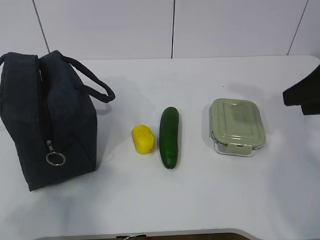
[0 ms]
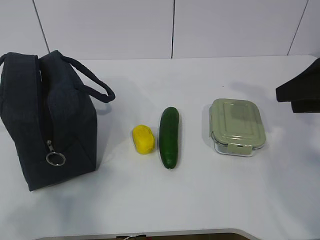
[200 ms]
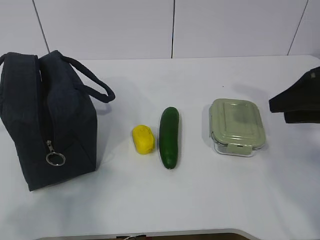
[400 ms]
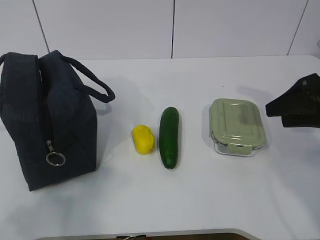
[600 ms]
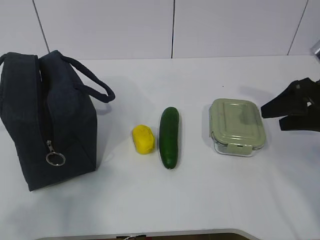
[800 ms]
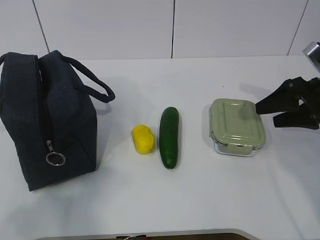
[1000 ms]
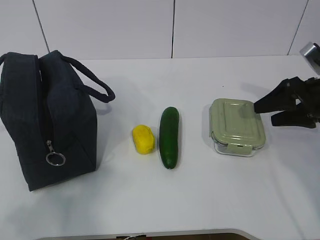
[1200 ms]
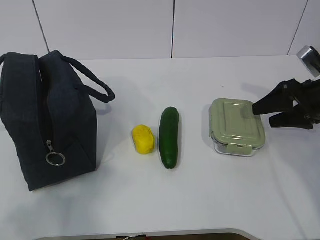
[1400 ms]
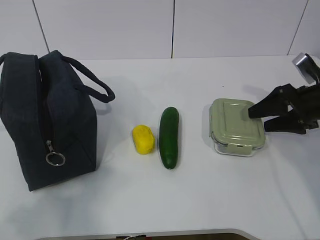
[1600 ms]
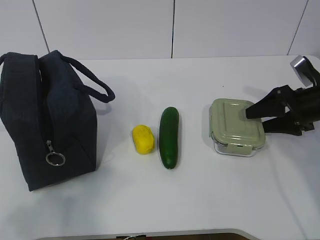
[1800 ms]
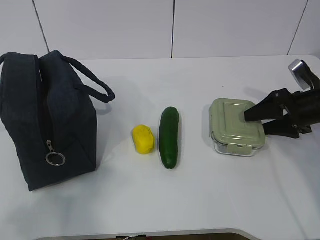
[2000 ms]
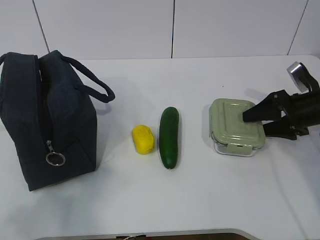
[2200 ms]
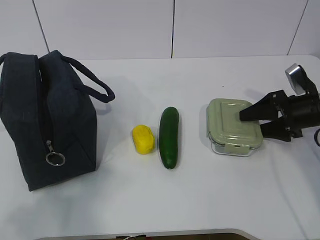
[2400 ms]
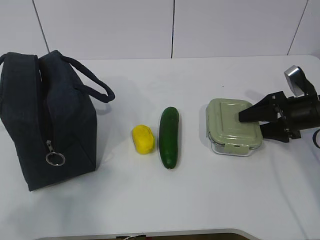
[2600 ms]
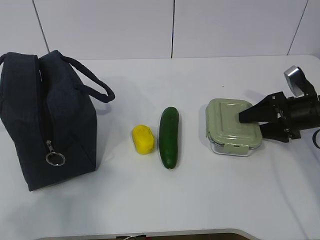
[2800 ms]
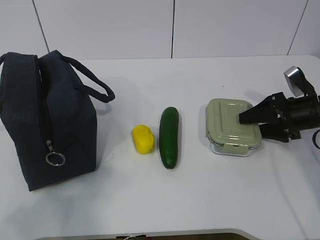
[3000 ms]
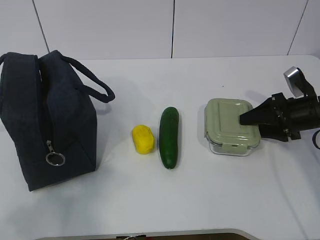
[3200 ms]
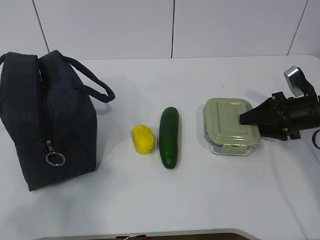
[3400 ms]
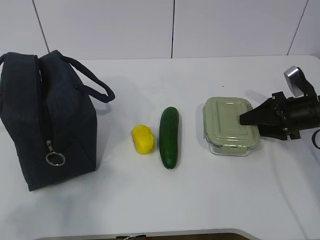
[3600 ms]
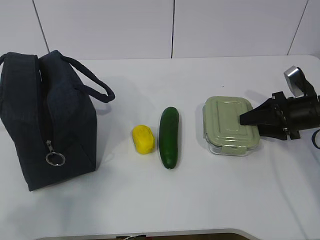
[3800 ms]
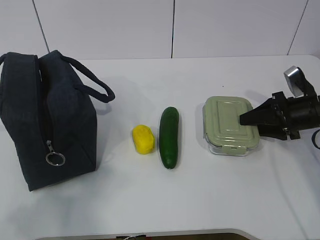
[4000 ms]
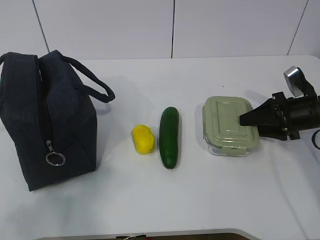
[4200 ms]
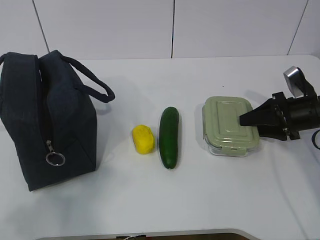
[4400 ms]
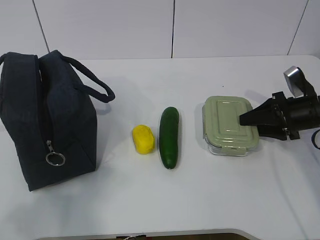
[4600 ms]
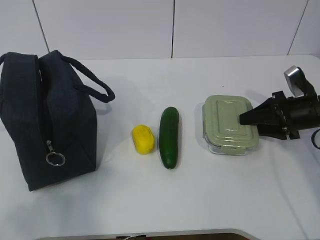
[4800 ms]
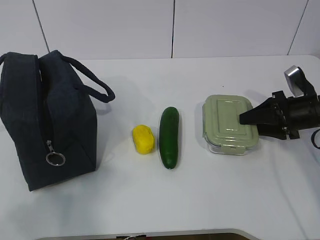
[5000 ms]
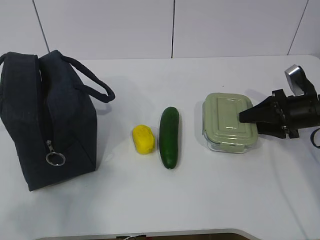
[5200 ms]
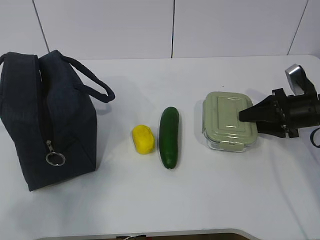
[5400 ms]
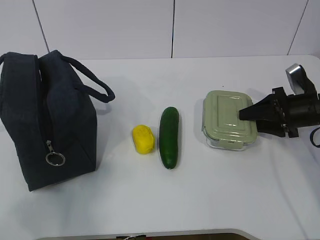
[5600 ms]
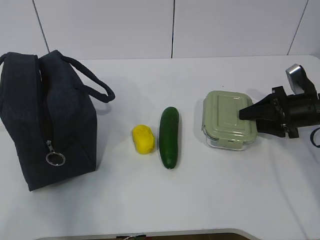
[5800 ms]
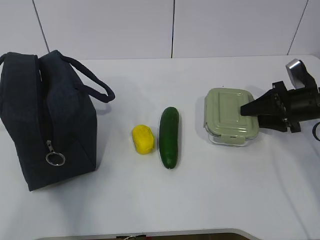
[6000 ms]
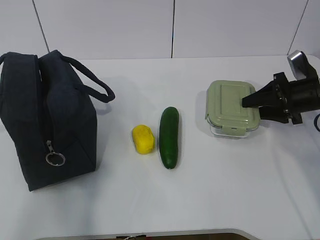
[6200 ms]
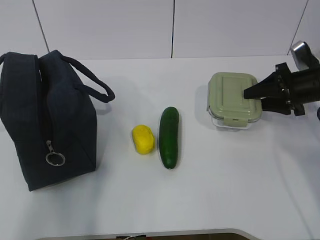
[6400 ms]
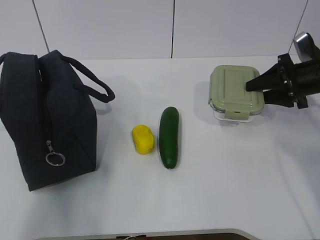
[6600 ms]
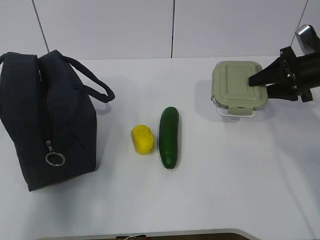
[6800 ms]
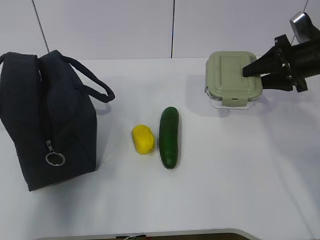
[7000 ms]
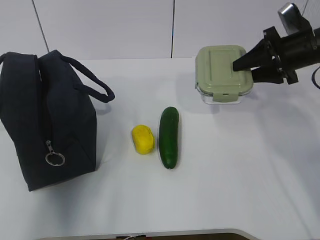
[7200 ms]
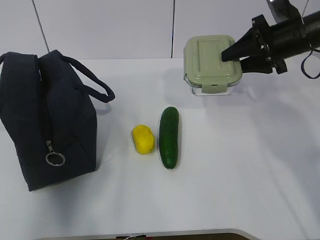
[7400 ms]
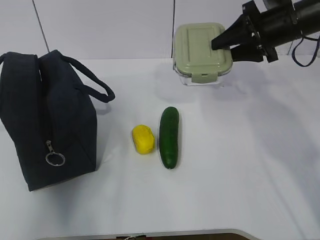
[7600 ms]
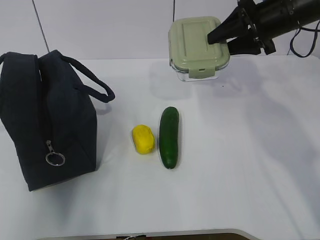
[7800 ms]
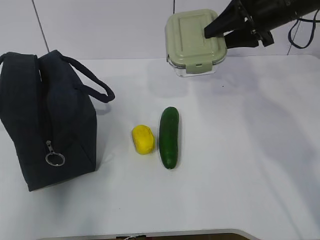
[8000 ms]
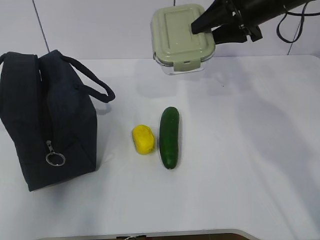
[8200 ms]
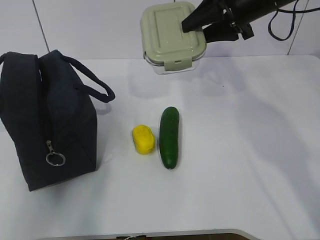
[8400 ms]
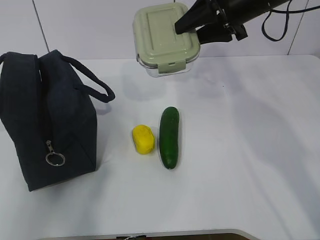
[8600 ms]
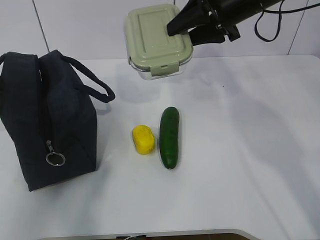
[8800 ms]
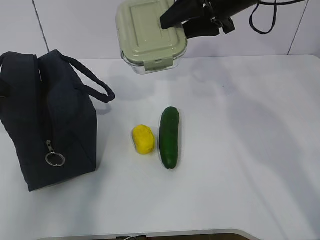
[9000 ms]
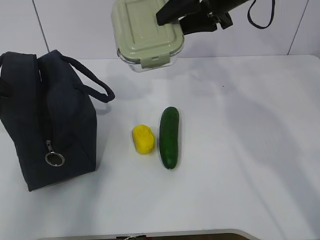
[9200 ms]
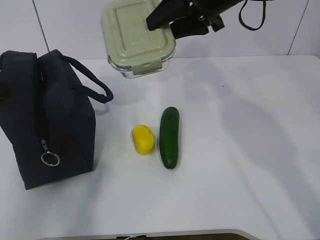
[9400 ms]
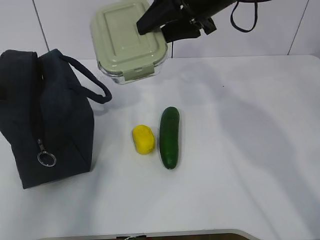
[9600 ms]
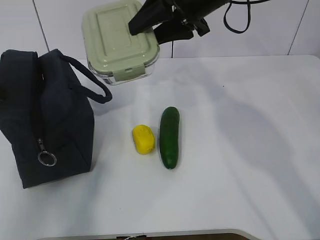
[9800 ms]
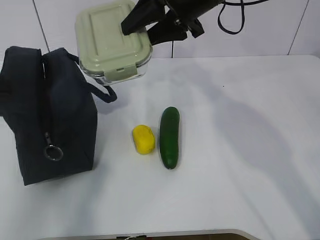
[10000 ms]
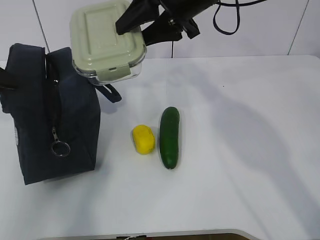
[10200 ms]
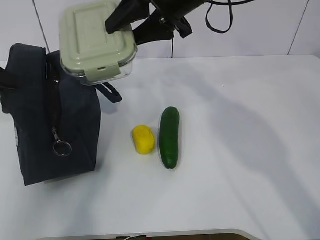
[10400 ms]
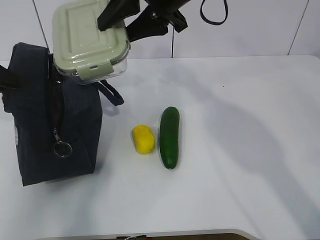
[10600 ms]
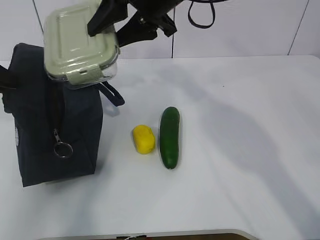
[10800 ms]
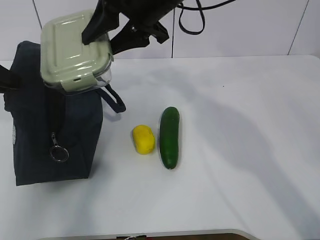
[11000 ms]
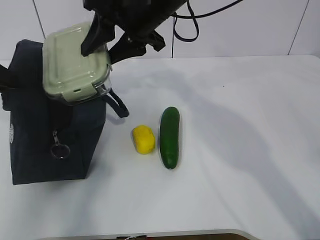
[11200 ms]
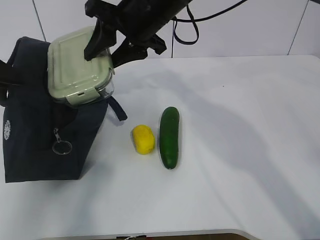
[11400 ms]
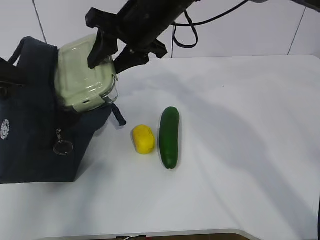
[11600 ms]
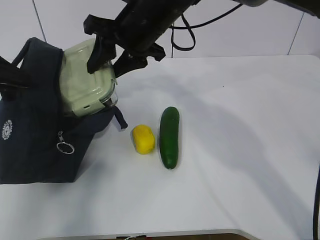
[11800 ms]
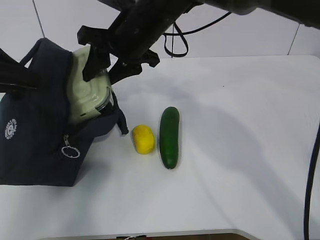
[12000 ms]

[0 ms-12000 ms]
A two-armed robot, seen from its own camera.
Step, 0 ms to 3200 ms: Grab the lunch box with your right hand.
Step, 3400 ms to 8200 ms: Grab the lunch bag with your left hand.
Step, 8400 ms to 10200 ms: Place it into the bag with your right hand.
0 ms to 1600 ms: The right gripper is displaced downward and forward by about 15 cm.
1600 ms to 3000 ms: There are only small adjustments of the grippers.
3000 ms to 4400 ms: Neither gripper changes place.
4400 ms to 6000 ms: The grippers stay close to where they were, moving slightly.
6000 ms to 7600 ms: The left gripper heads forward, covering about 20 cm. The right gripper travels upward and to the left by about 15 cm.
7600 ms to 9000 ms: The left gripper goes some 10 cm downward and forward, while the right gripper travels to the left and upward by about 10 cm.
9000 ms to 10400 ms: The right gripper is displaced to the left by roughly 10 cm, while the left gripper closes its fingers.
10400 ms to 12000 ms: The right gripper travels to the left and downward by some 10 cm.

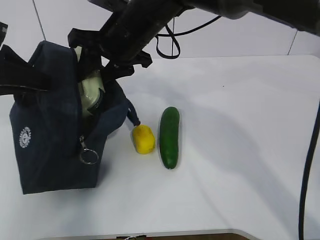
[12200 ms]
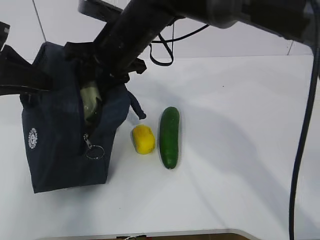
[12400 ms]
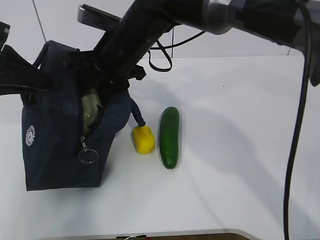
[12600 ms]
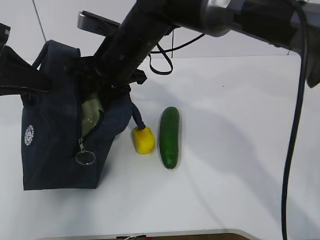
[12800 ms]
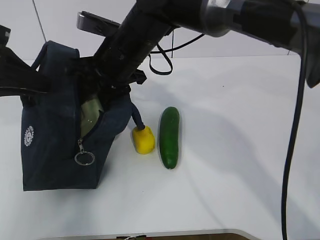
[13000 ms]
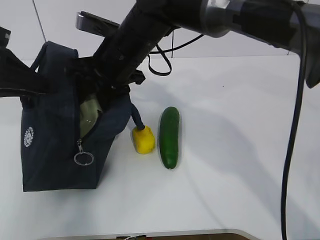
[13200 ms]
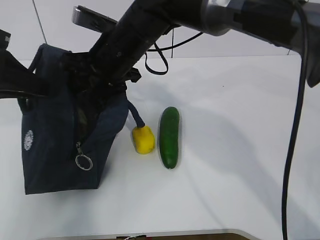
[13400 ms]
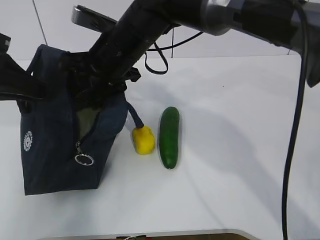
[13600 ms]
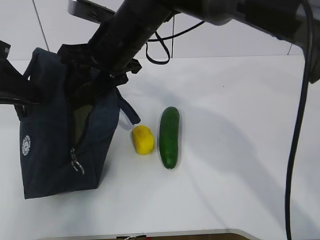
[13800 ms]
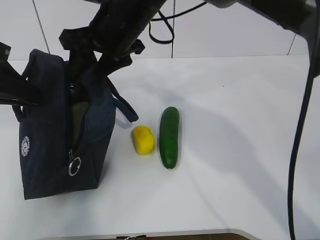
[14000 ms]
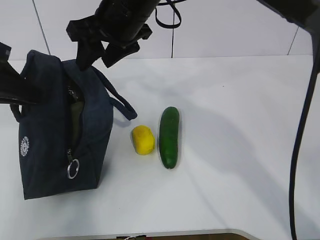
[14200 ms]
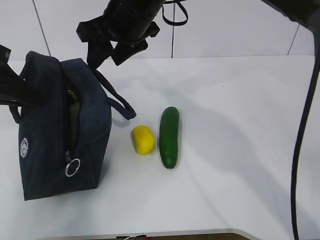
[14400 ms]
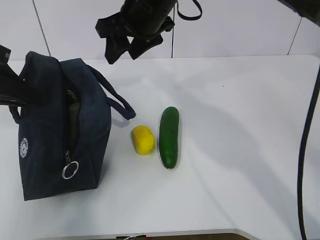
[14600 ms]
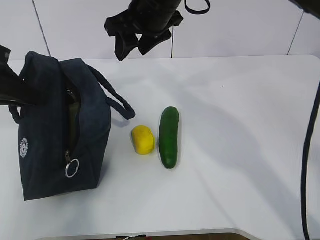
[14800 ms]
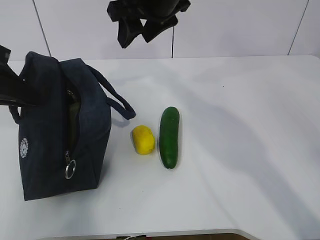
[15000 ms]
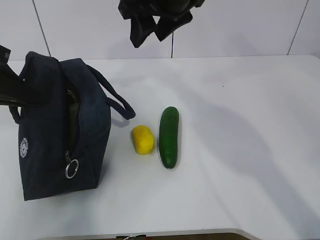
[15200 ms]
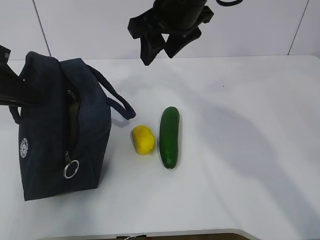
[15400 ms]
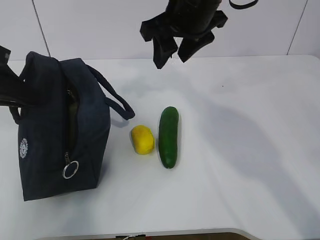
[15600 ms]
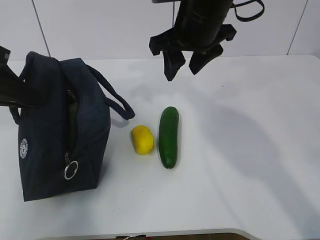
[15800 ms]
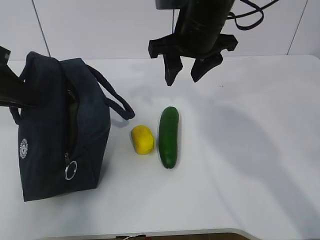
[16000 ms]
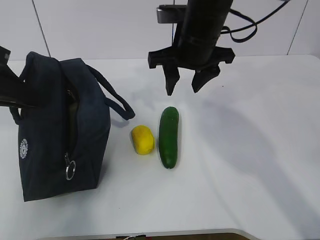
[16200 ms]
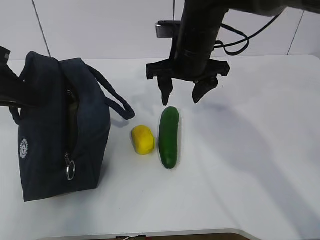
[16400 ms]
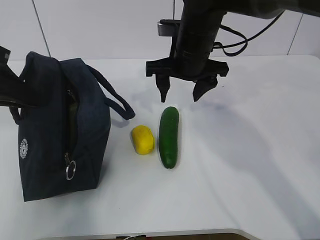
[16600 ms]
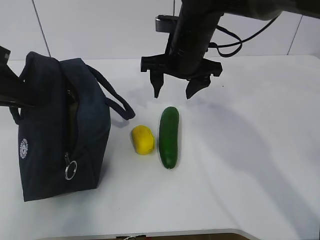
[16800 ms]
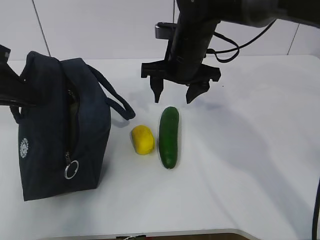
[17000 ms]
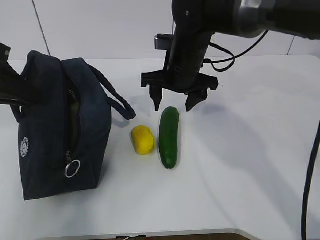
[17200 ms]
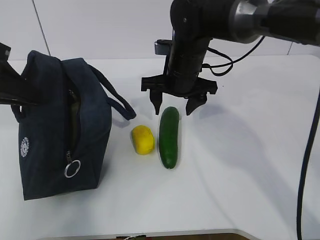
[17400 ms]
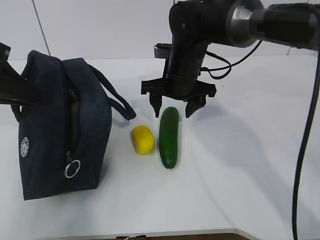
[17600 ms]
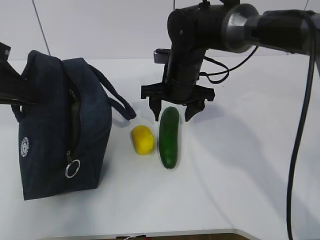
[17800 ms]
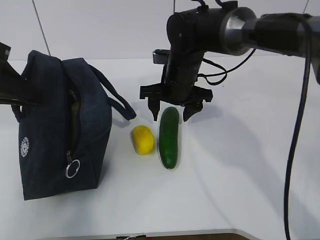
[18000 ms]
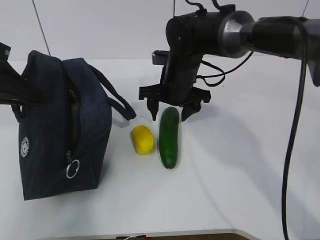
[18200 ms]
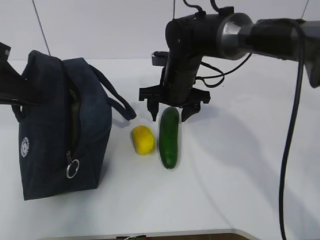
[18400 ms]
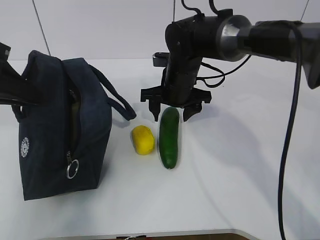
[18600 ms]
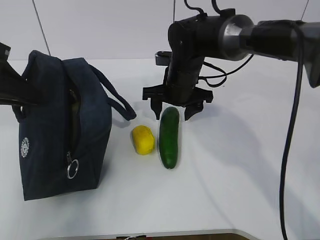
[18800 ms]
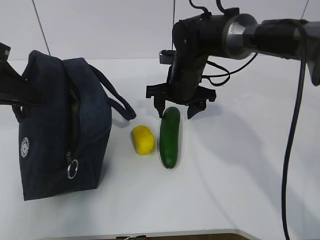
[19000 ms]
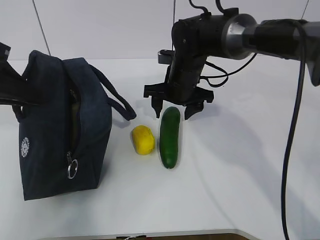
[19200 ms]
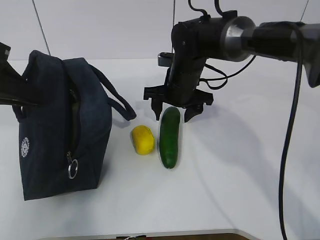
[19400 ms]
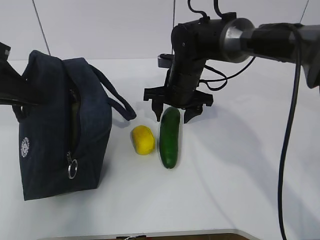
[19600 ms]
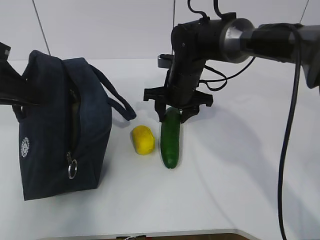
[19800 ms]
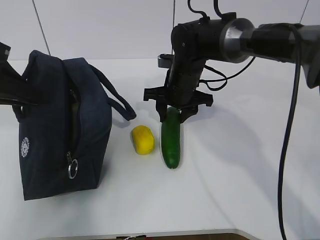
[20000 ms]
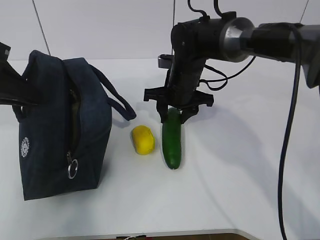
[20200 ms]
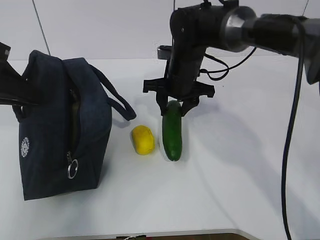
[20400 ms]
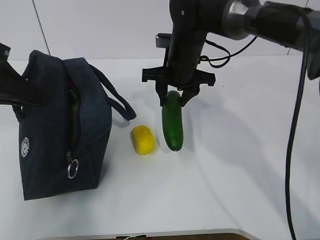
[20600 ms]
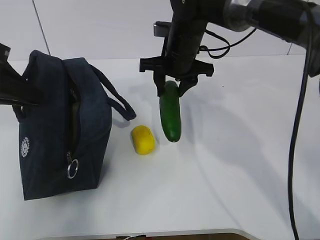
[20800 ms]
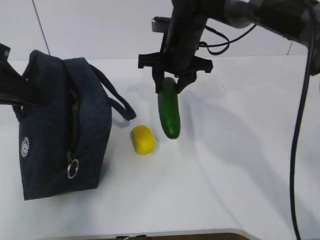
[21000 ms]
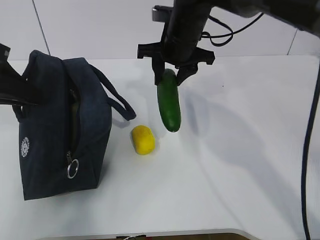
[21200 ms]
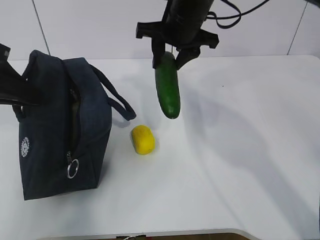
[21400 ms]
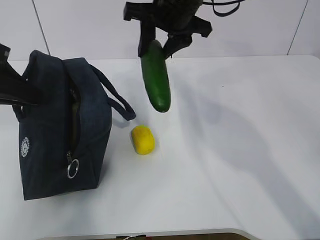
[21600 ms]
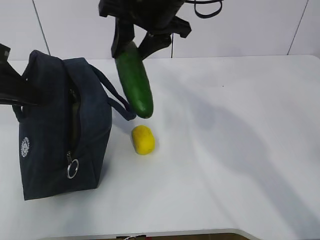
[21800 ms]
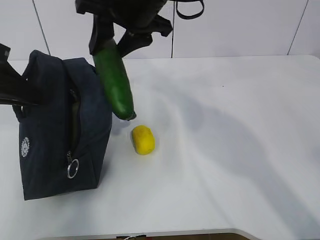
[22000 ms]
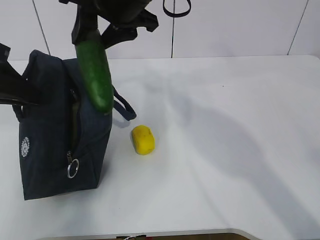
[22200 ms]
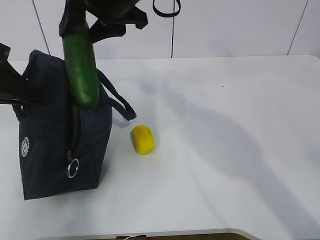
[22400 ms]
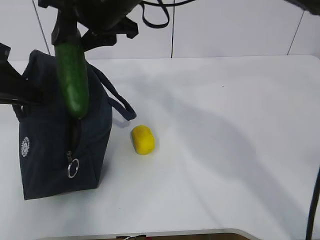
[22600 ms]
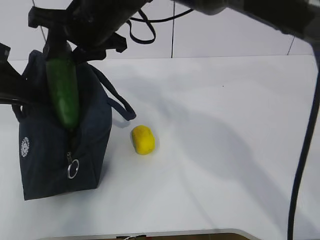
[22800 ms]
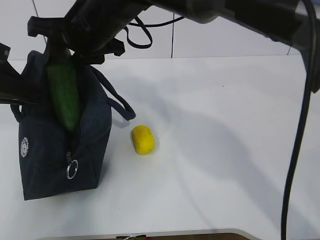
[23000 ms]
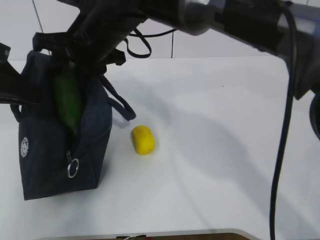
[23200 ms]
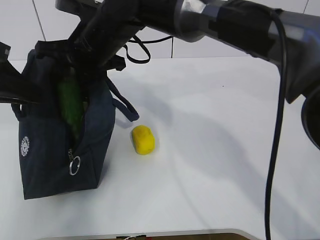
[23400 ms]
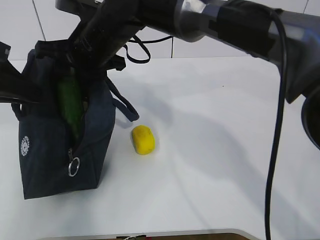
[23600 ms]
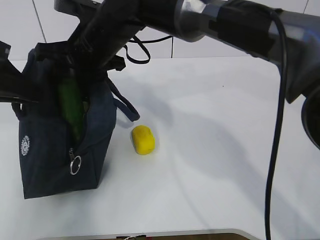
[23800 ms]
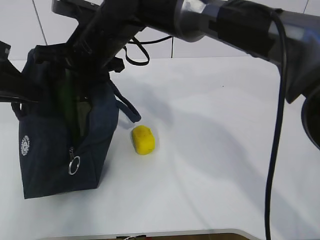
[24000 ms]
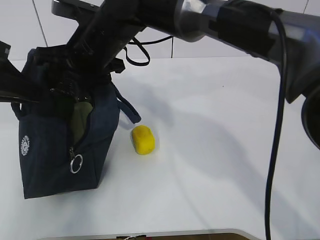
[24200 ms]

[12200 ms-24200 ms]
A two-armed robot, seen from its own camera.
Step, 12200 ms to 15600 ms: Grab the cucumber with your right hand.
Step, 16000 ms to 19200 ms: Place it into the bag with your right hand.
12200 ms to 13800 ms: The grippers stay close to where they were, moving slightly.
13800 ms to 15200 ms: The right gripper shifts some 10 cm upward and to the right.
15200 ms to 16600 ms: The right gripper moves downward, some 10 cm.
16600 ms to 18200 ms: The right gripper heads downward, covering some 5 cm.
18200 ms to 19800 ms: The grippers stay close to where they were, moving slightly.
19800 ms to 21200 ms: The right gripper moves upward, about 10 cm.
21200 ms to 22600 ms: The right gripper heads to the left, upward and backward, covering about 15 cm.
22600 ms to 24200 ms: The right gripper moves downward, approximately 5 cm.
